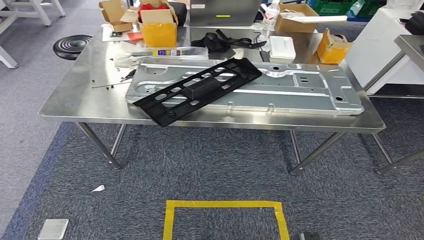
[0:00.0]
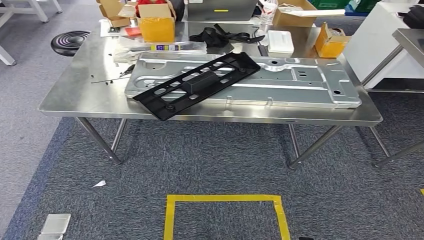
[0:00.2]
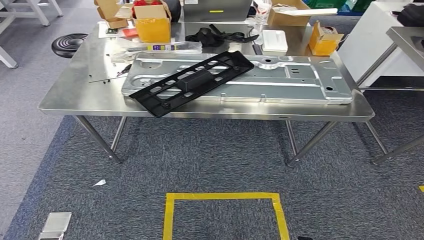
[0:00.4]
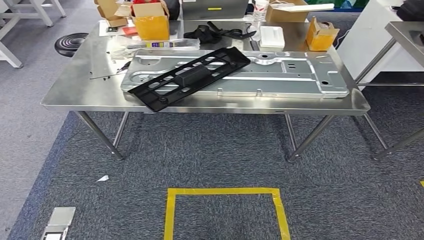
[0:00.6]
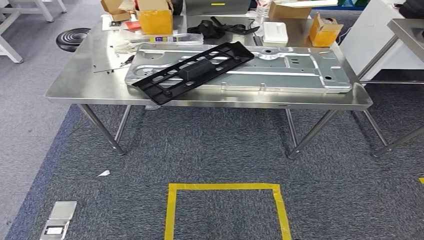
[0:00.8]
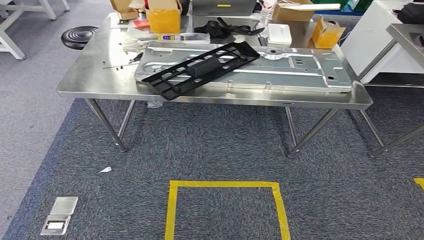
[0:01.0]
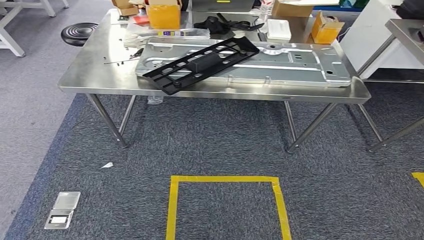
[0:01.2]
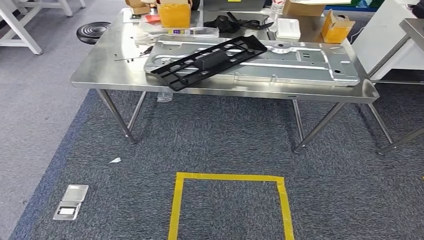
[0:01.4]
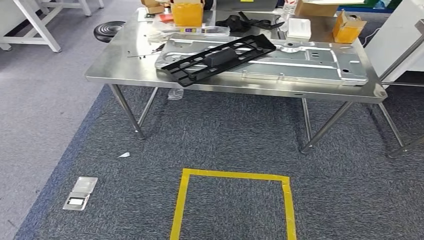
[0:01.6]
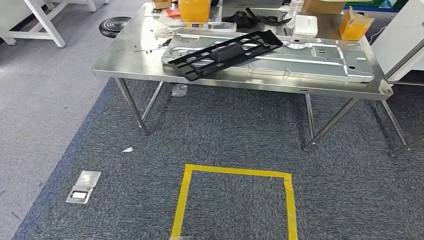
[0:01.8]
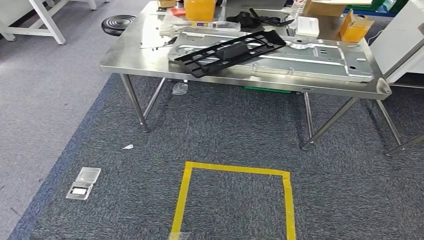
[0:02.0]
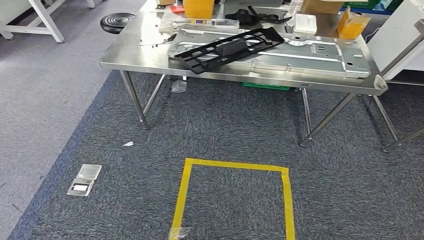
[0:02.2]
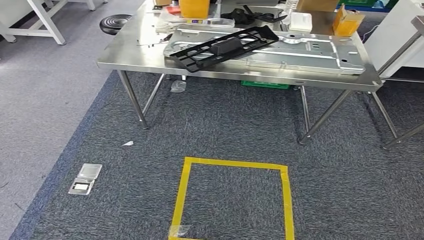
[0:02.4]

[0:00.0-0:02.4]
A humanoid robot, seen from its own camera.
Step, 0:00.0 to 0:02.4: Return to the initial position at the workbench.
